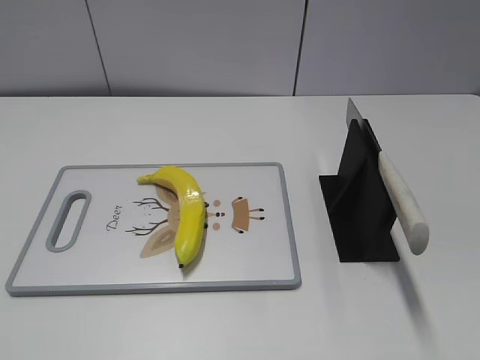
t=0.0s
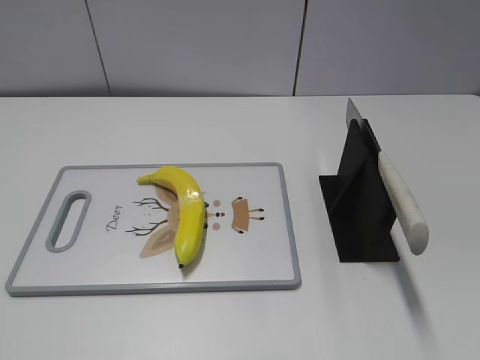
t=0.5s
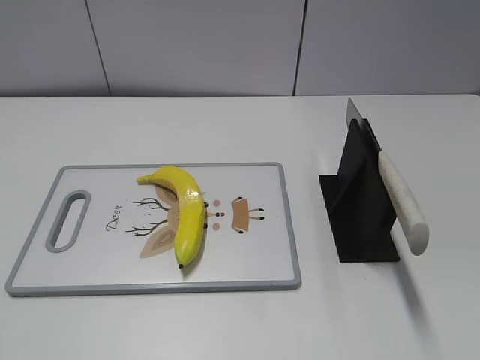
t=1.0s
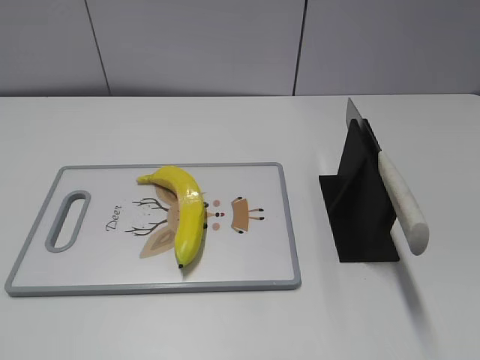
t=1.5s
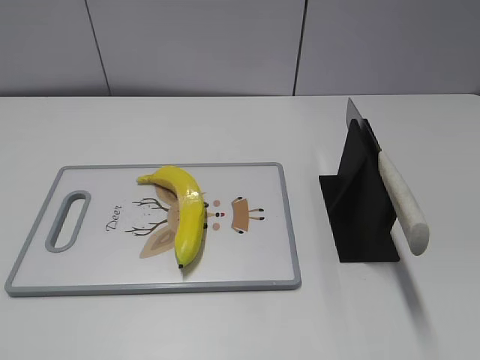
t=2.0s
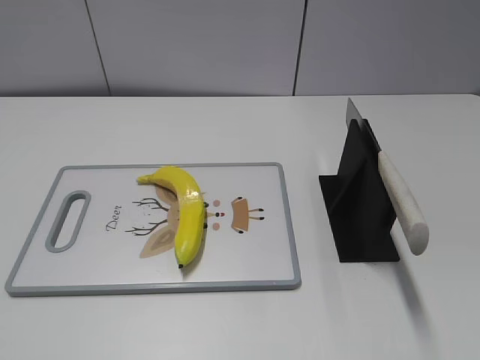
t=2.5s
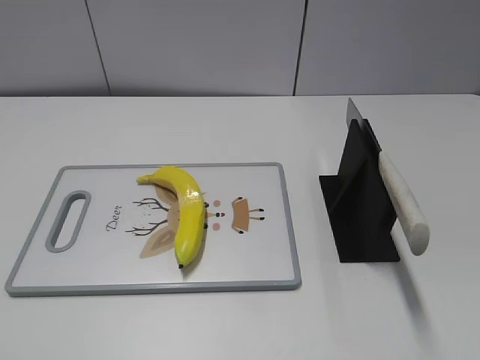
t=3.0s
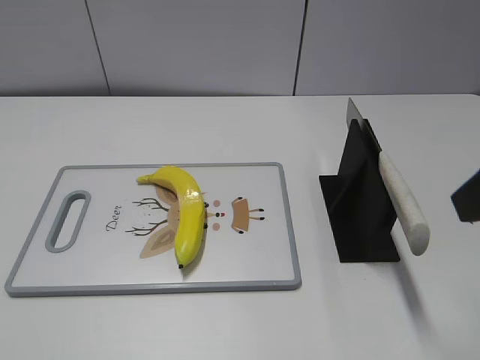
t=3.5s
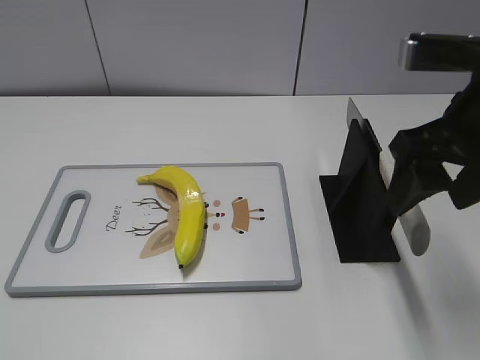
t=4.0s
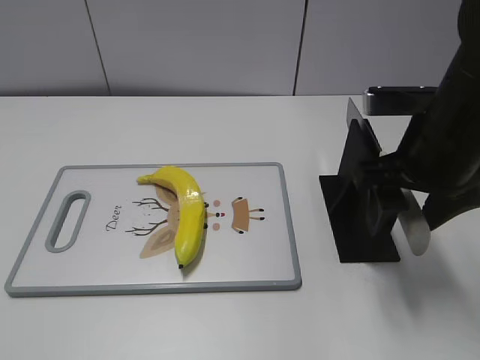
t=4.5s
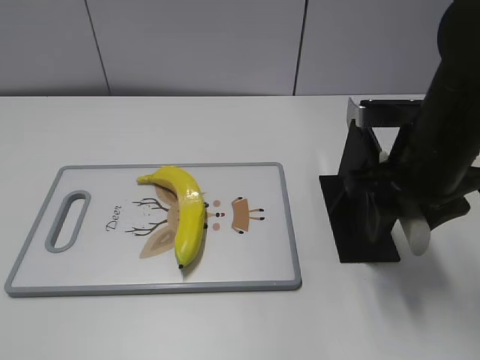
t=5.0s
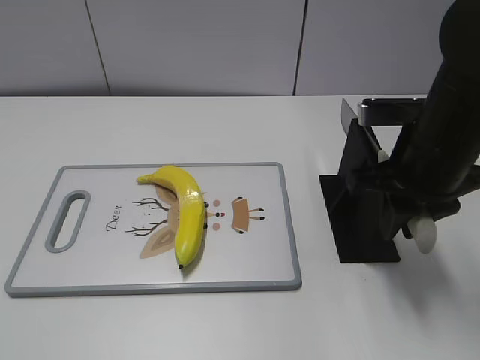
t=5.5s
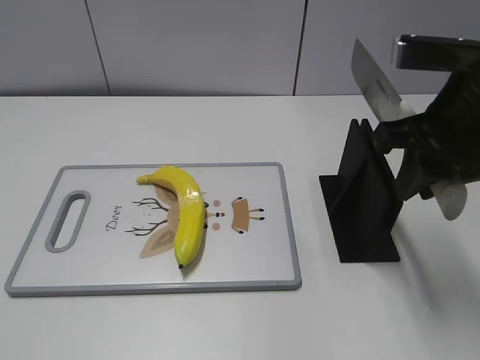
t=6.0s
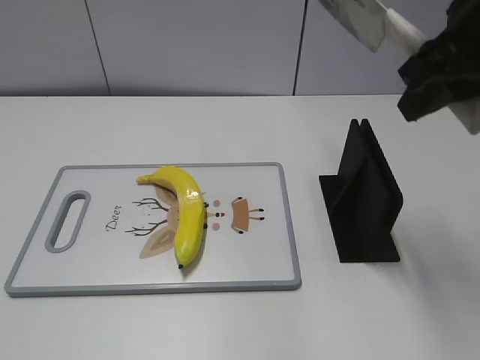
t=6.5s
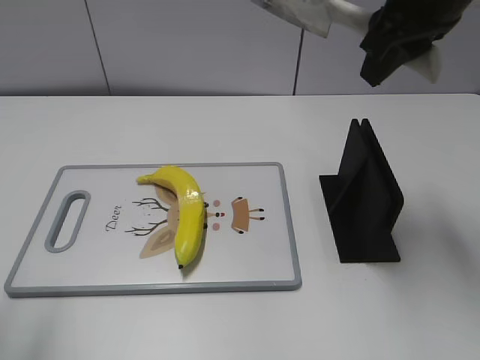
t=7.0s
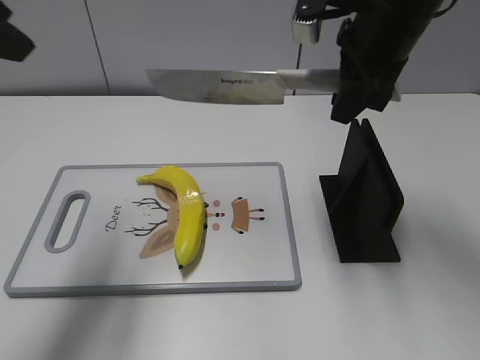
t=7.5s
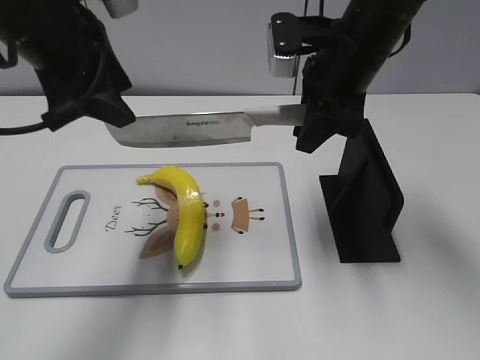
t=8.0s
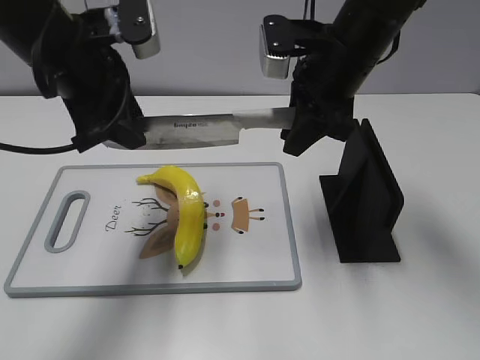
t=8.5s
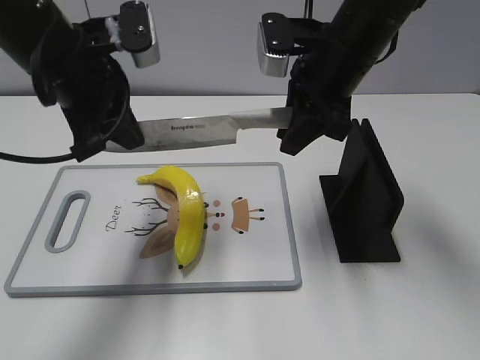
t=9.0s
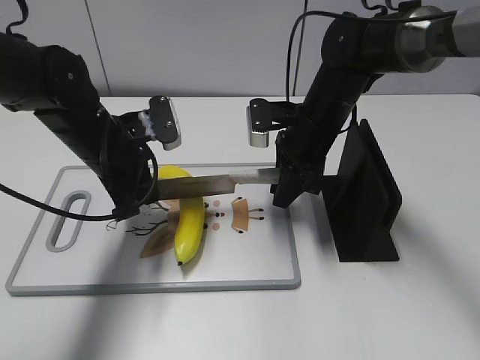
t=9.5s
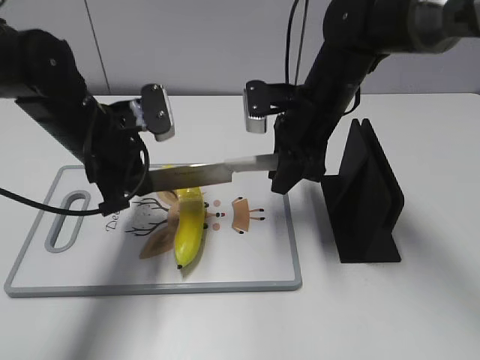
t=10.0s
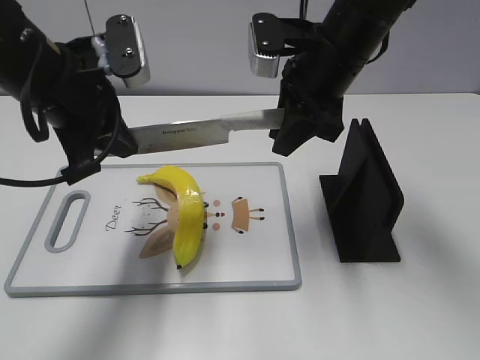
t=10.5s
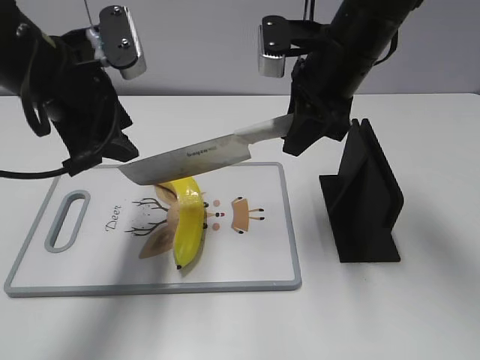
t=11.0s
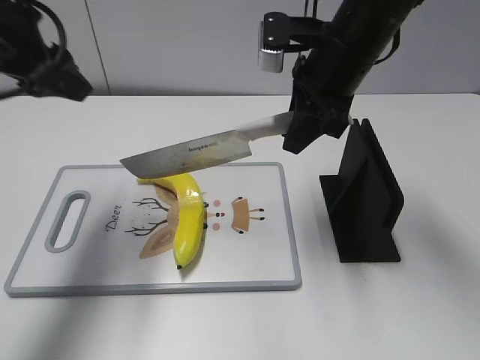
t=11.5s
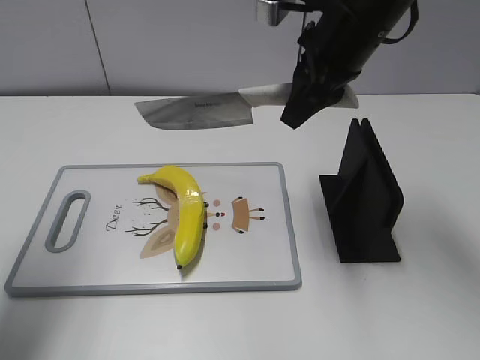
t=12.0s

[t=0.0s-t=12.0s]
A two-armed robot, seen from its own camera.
Task of the whole recording: cut plastic banana.
Step, t=0.0s to t=6.5s: Grab the knife handle with your right hand.
Step, t=7.0s to t=10.5s: Lift the knife with your right hand.
t=2.0s to t=4.0s: The right gripper moves forward and to the left, approximately 25 cm.
t=4.0s to t=6.0s: The right gripper moves about 10 cm downward and comes back, and closes its fingers.
t=6.0s to t=8.0s: The right gripper moves forward and to the left, roughly 15 cm. Meanwhile the left gripper moves forward and to the right, approximately 35 cm.
t=8.0s to t=10.0s: The right gripper heads downward, covering roughly 10 cm. The left gripper travels downward by some 15 cm, and closes up.
t=10.0s to t=12.0s: The left gripper goes some 25 cm upward and to the left, and opens up; the right gripper shifts approximately 10 cm upward.

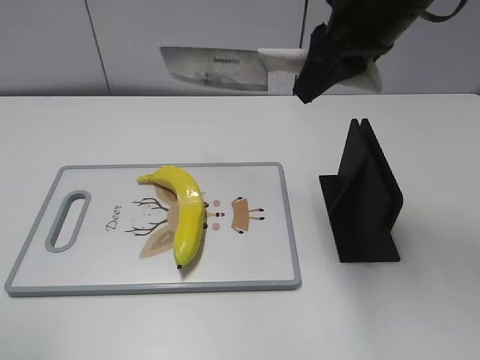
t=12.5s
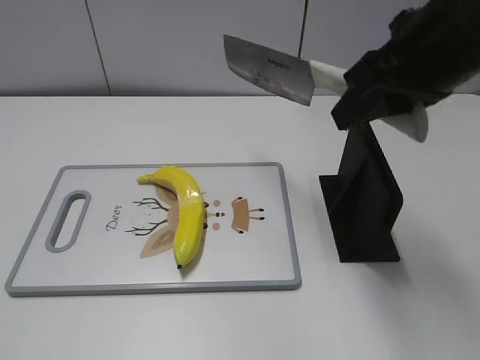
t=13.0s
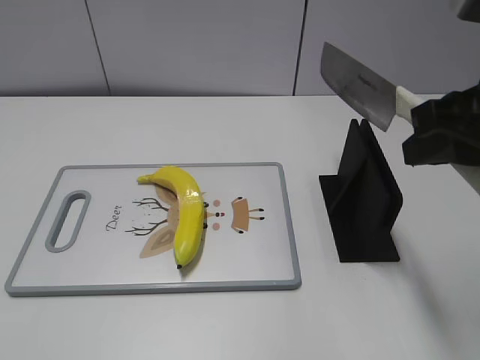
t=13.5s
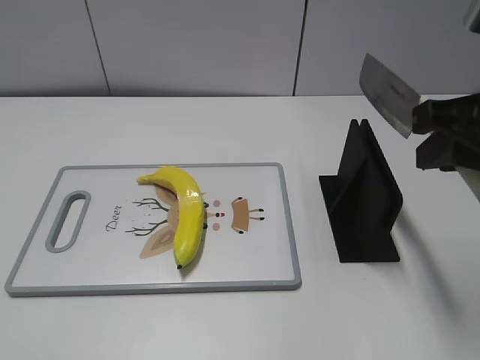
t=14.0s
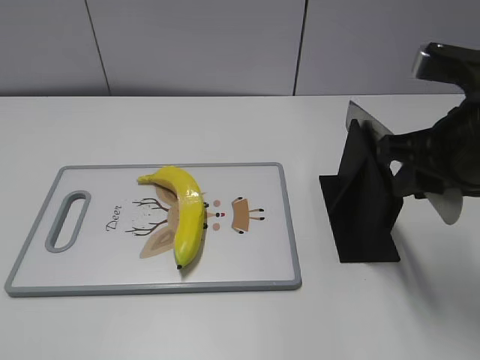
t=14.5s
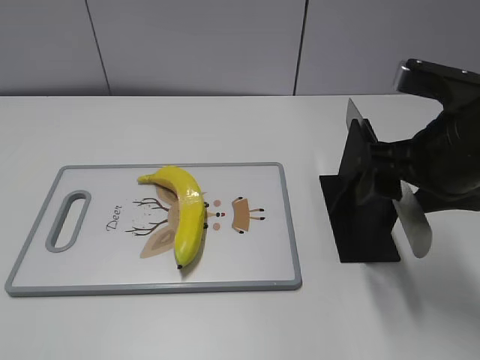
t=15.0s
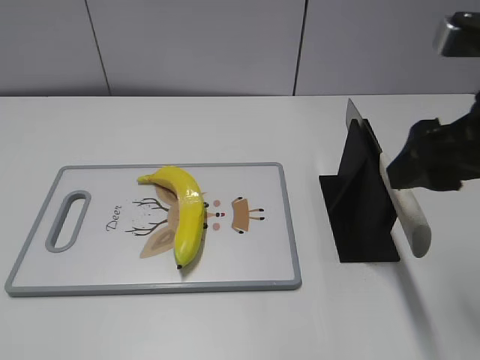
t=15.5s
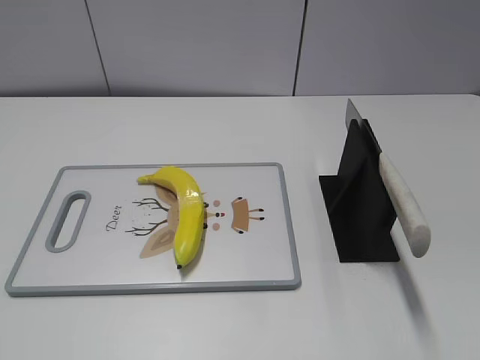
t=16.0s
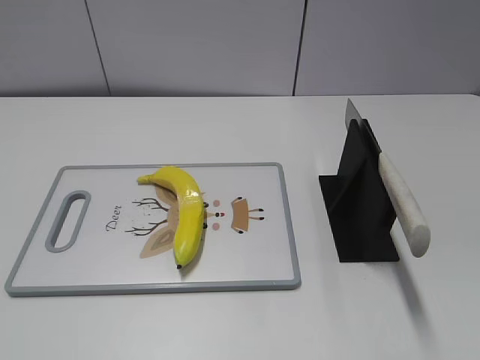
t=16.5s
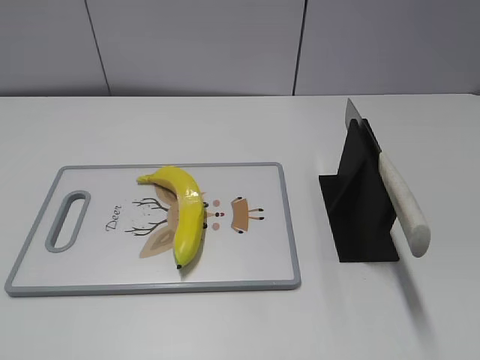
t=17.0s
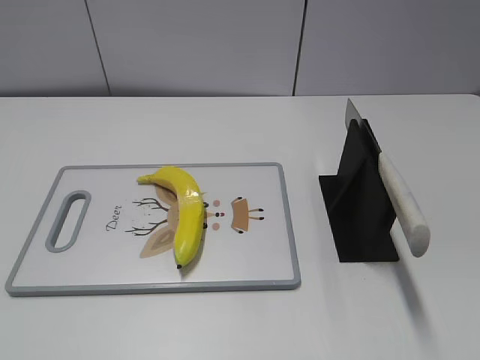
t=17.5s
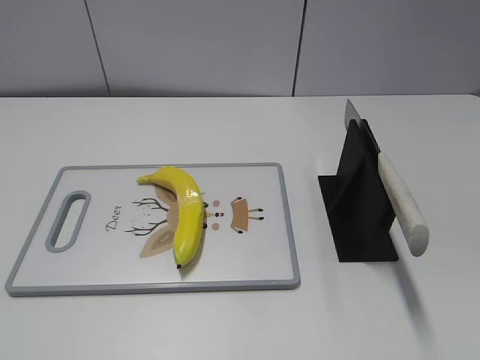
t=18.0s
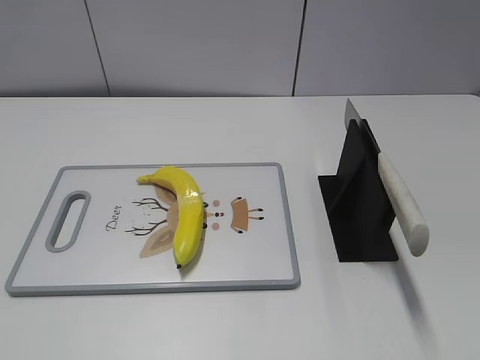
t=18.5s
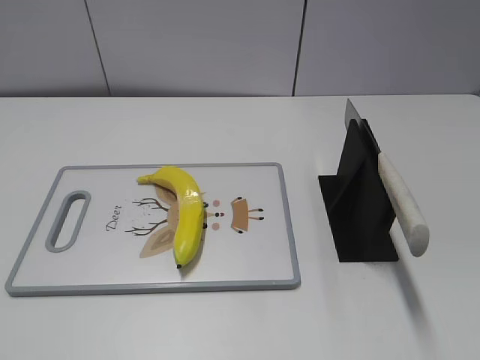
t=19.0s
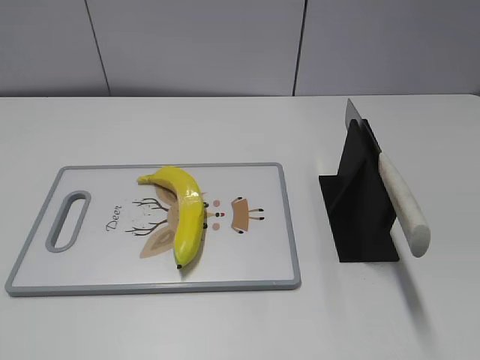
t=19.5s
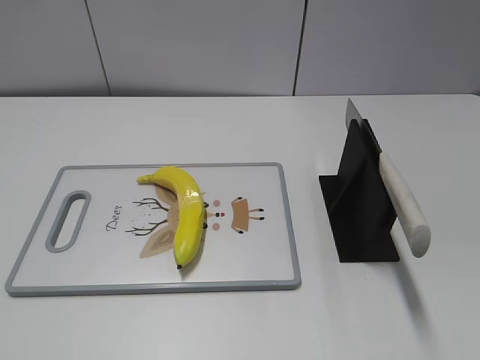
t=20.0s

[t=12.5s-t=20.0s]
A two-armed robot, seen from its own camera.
Task of the whole recording: cut plastic banana.
Step, t=12.5s to t=13.0s: Lift the knife with your right hand.
Step, t=13.5s to t=19.0s: Place the knife on the storage rack with your right hand.
t=12.5s to t=14.5s: The left gripper heads backward and downward, covering roughly 15 cm; the right gripper is displaced backward, to the right and downward by about 15 cm.
t=14.5s to t=16.5s: The right gripper travels backward by approximately 20 cm, and opens its fingers.

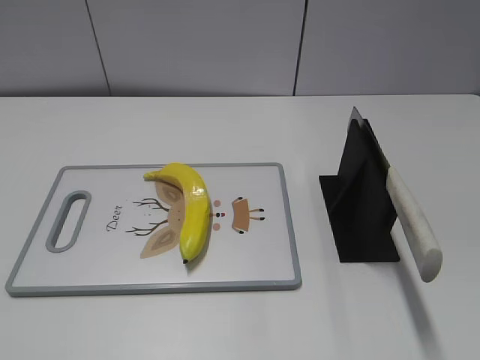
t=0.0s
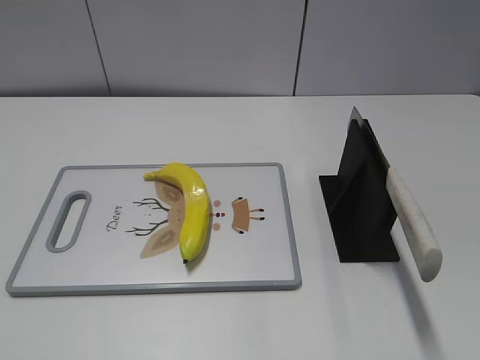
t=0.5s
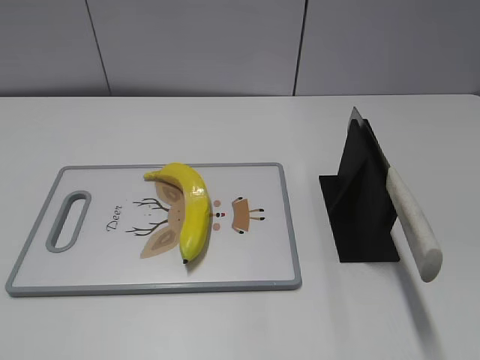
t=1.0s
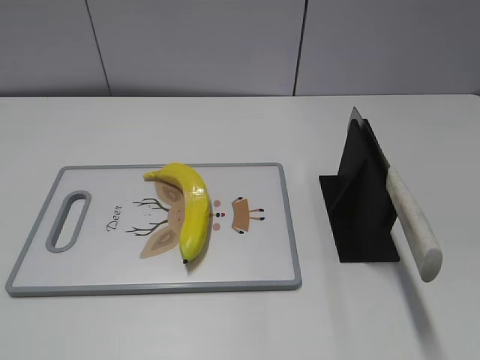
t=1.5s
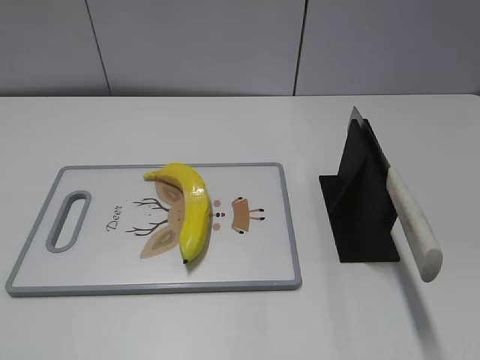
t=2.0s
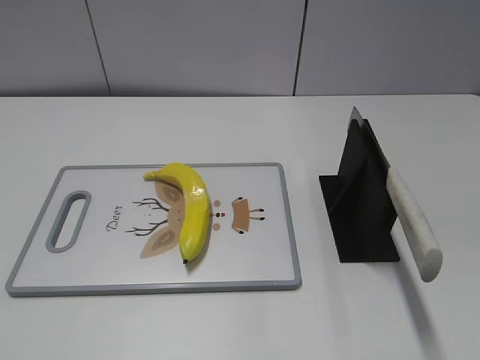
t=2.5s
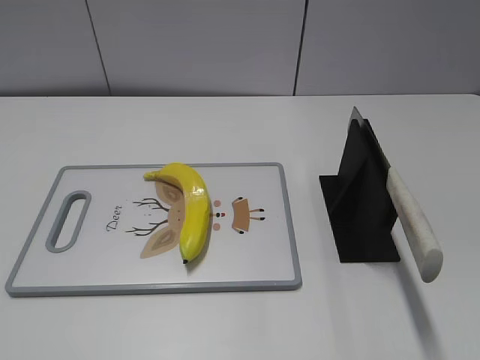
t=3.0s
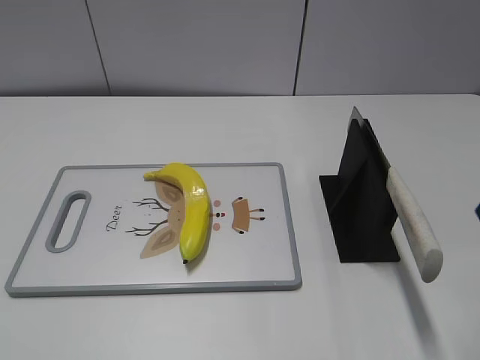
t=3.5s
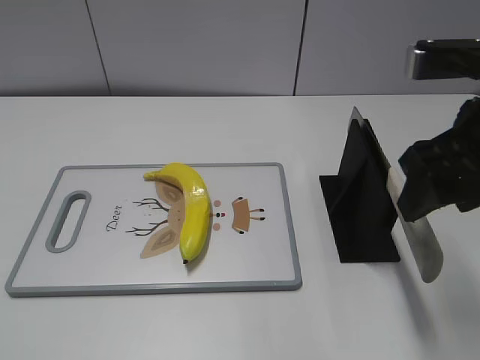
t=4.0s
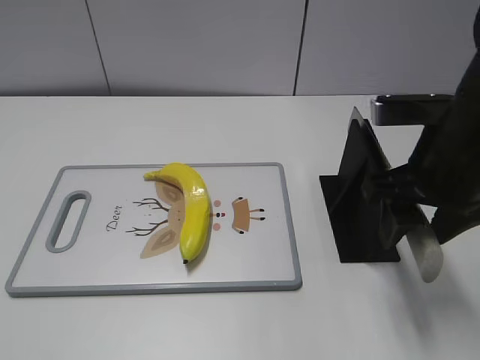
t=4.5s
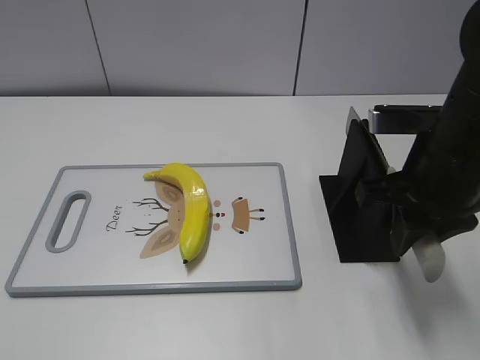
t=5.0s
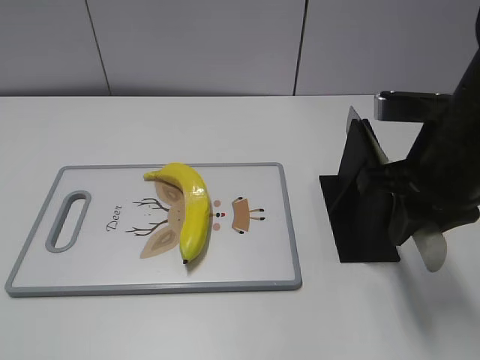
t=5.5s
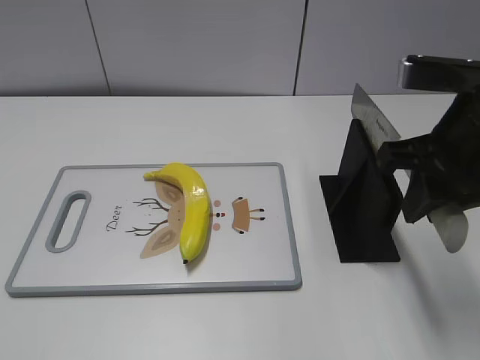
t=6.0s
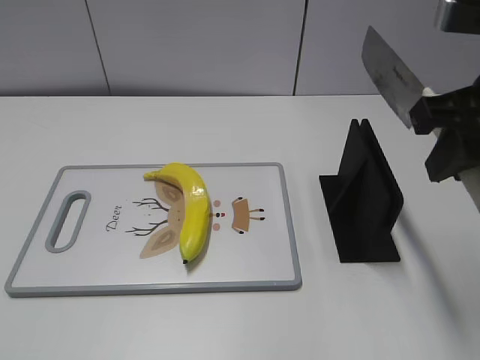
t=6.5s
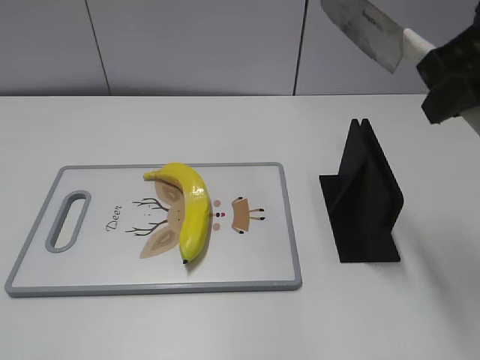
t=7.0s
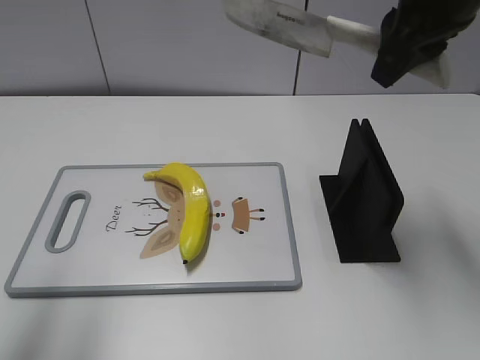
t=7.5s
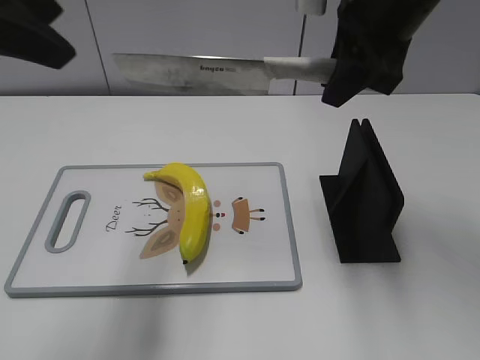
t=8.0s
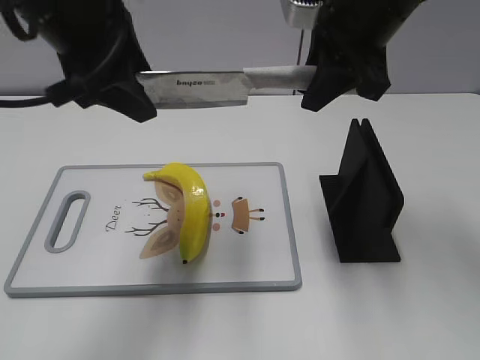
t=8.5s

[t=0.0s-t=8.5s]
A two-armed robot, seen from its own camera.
Task of the whole recording: cut plastic banana.
Step, t=0.0s to t=6.0s: Grab the knife handle with your right hand.
t=2.0s to t=4.0s: The right gripper is displaced forward and to the left by approximately 25 cm.
t=4.0s to t=6.5s: The right gripper goes downward and returns, approximately 5 cm each way, and closes.
t=6.5s to t=8.5s: The right gripper is displaced forward and to the left by about 15 cm; the left gripper shifts some 35 cm forward and to the right.
